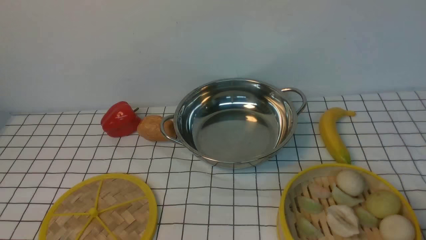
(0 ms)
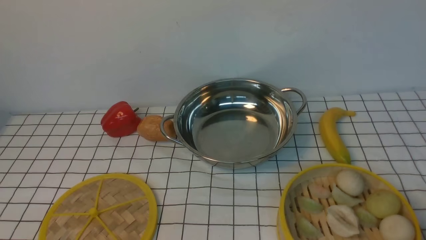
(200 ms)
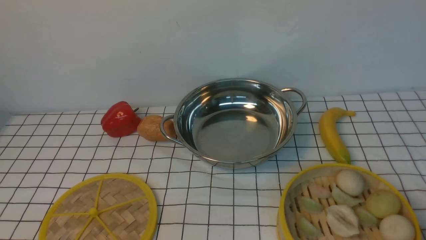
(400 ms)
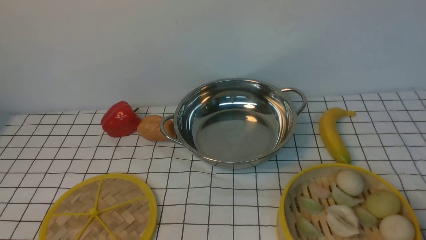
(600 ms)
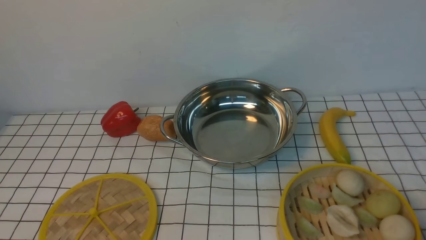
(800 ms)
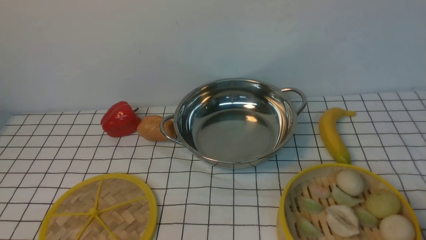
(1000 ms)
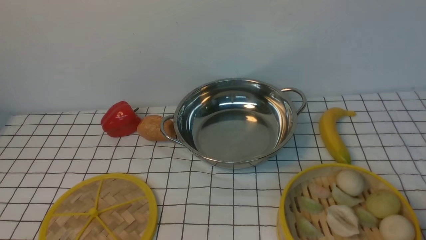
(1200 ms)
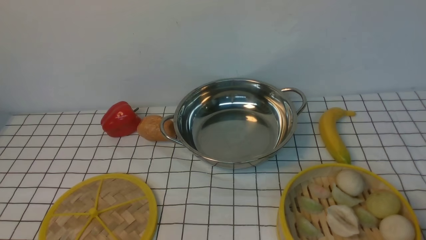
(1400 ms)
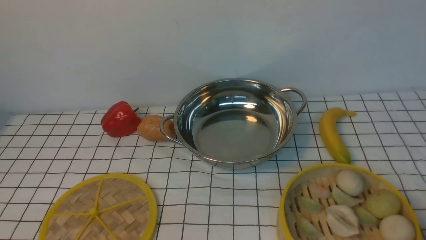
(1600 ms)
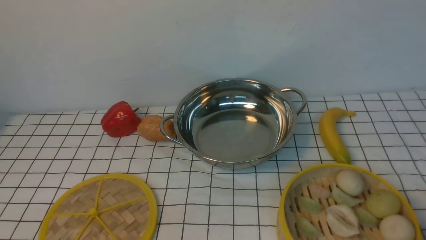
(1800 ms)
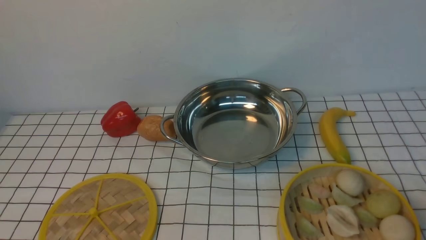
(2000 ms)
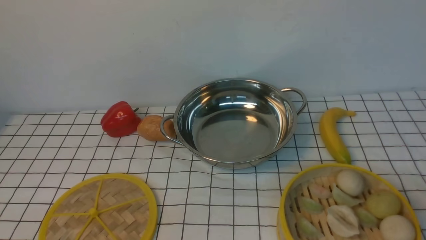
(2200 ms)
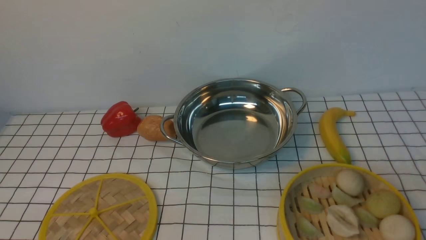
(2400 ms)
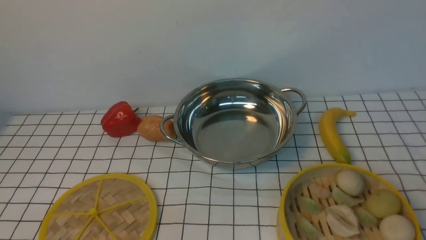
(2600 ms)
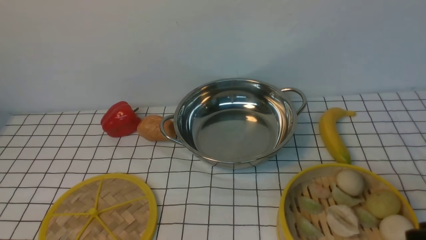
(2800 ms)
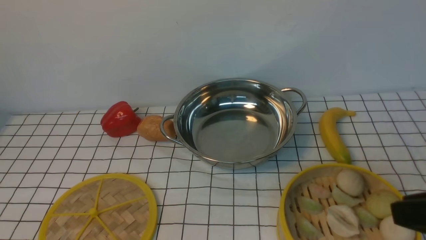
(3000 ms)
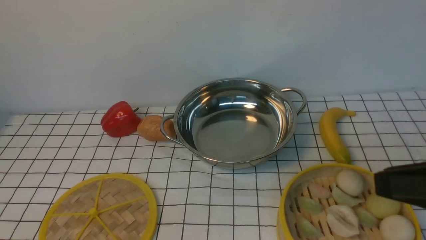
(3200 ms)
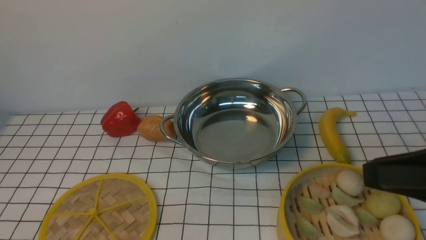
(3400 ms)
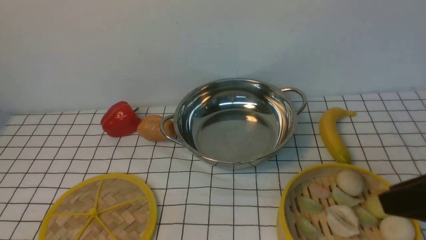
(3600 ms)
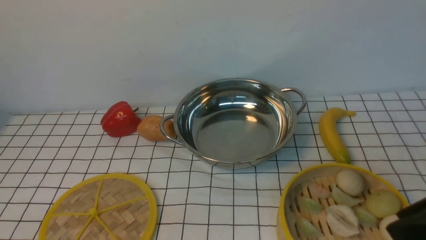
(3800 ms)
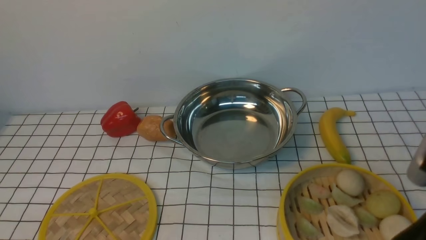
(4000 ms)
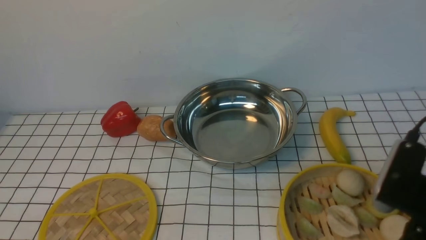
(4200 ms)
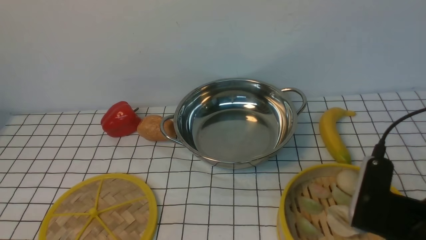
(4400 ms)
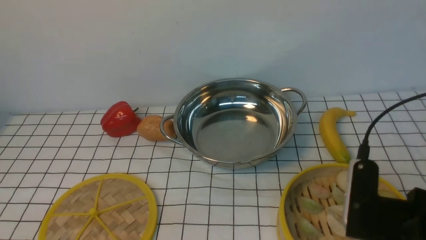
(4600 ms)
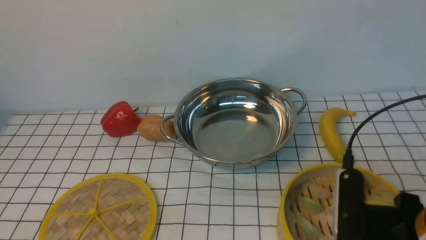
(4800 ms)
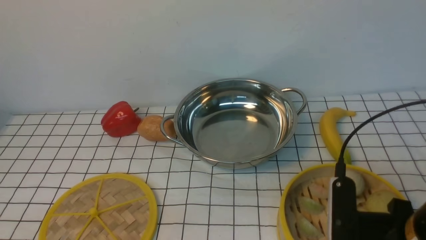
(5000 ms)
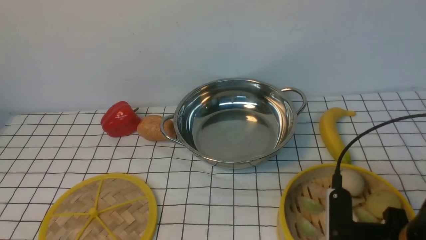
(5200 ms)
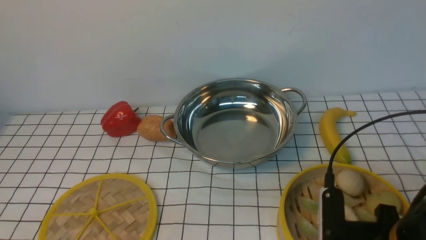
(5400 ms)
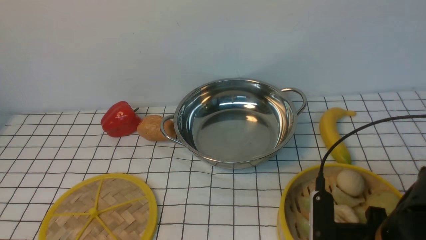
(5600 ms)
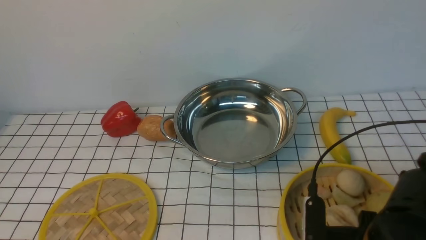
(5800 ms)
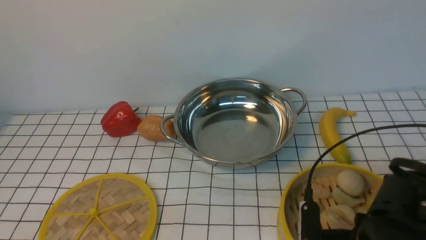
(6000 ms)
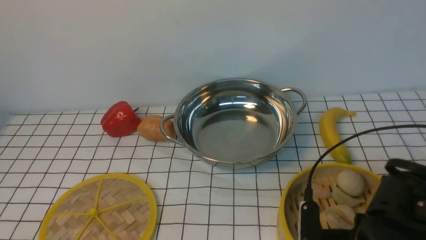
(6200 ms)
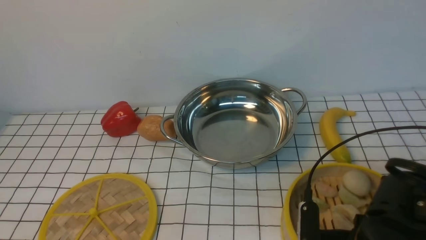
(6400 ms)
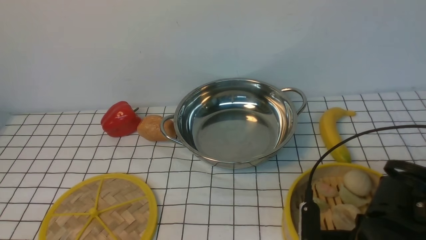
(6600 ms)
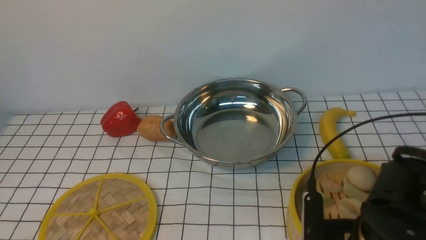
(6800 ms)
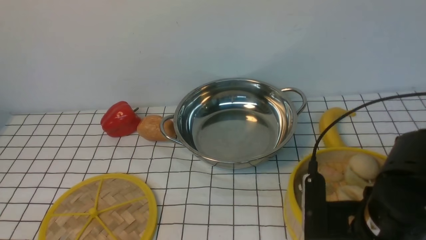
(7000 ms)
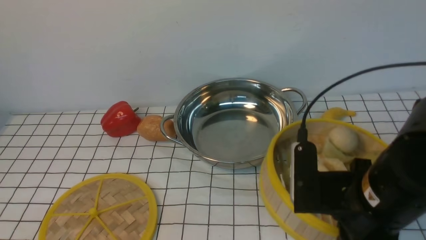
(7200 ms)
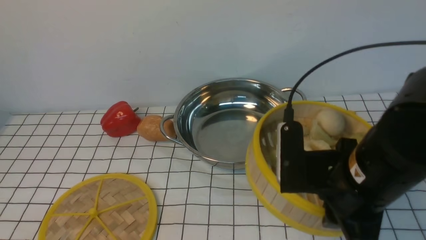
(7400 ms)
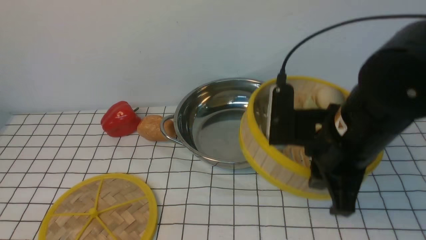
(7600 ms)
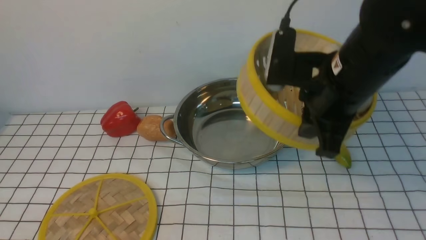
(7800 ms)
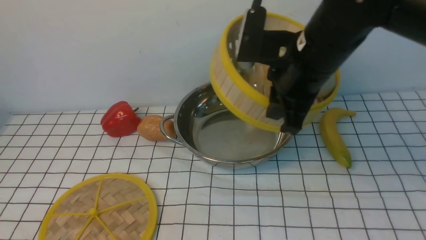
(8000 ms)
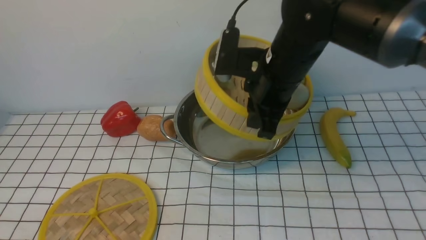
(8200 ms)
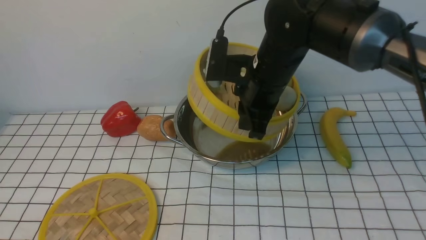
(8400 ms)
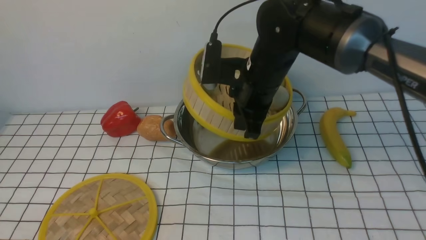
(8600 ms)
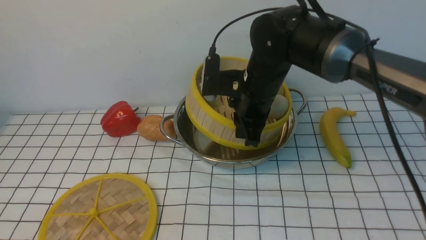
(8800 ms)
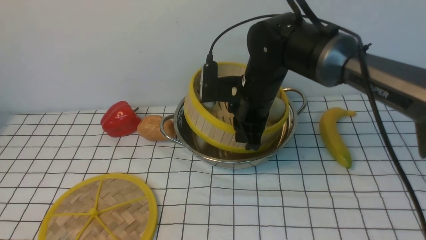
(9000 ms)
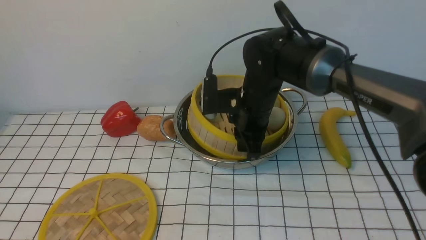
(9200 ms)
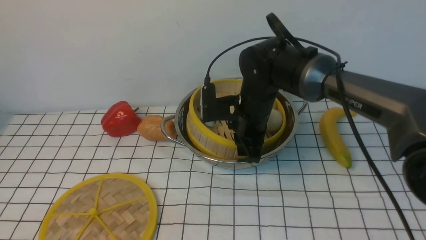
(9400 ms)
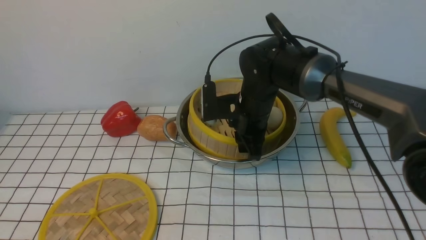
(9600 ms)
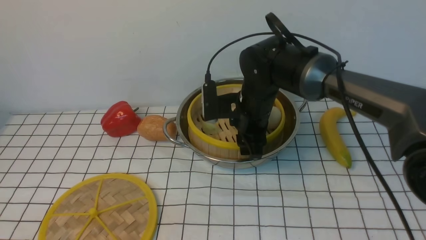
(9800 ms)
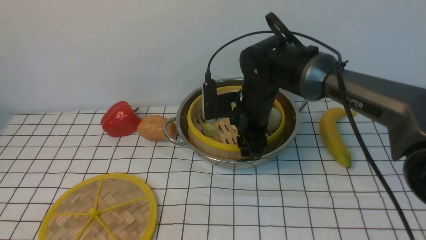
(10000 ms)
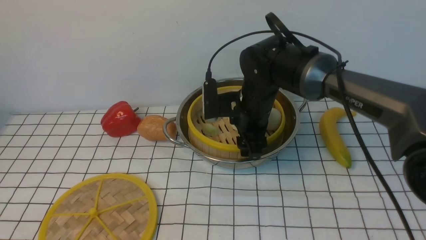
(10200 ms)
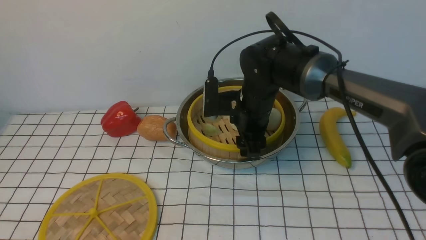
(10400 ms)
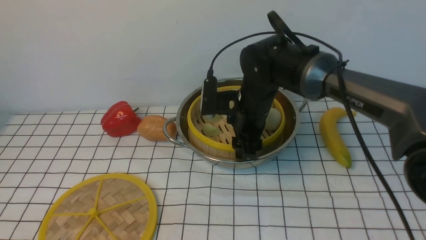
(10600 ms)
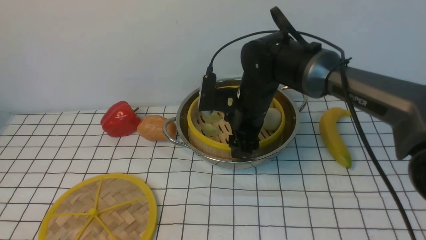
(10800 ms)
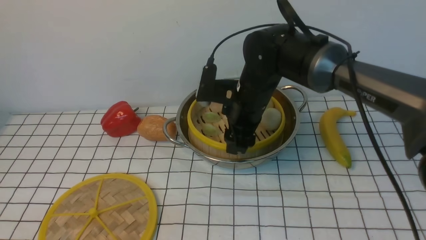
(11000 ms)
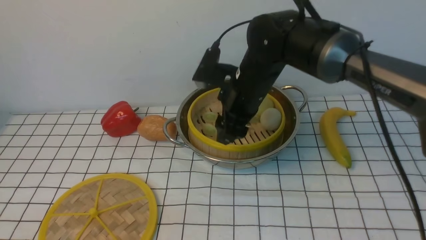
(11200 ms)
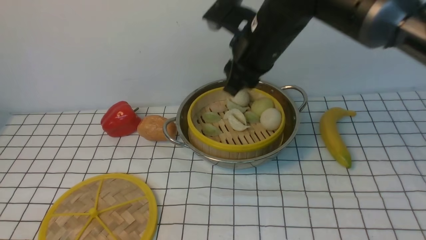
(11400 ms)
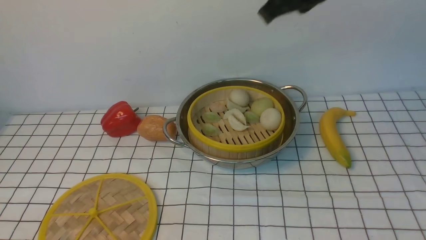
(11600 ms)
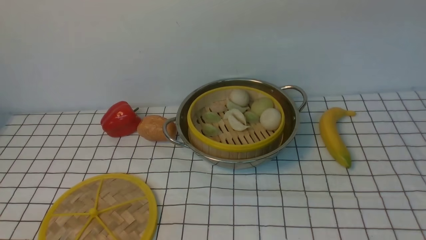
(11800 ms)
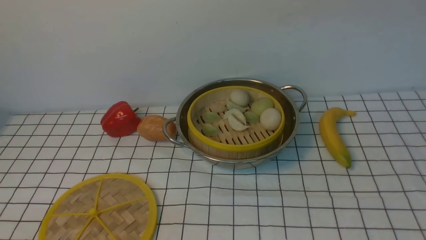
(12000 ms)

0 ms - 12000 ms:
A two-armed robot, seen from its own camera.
Task of the whole recording: place the steamer in the pot on the white tablecloth, and put the lid on the steamer.
Step, 0 ms - 6800 ms: use the right arm to lift the steamer closest to it.
Step, 7000 ms - 11000 ms: use the right arm to put the steamer into the iron steamer pot in the middle.
0 ms - 1600 ms: The two grippers keep their place.
1600 ms - 3000 ms: The right gripper is displaced upward by some 15 cm.
3000 ms - 4400 ms: The right gripper travels downward and to the left by about 10 cm.
4400 ms - 6000 ms: The right gripper moves downward, some 10 cm.
6000 ms - 7600 ms: The right gripper travels upward and forward by roughly 15 cm, and closes its fingers.
7600 ms - 9000 ms: The right gripper goes approximately 20 cm forward, to the left and downward.
9000 ms - 10400 ms: The right gripper opens.
10400 ms - 12000 ms: The right gripper moves upward and to the right, some 35 cm, and closes up.

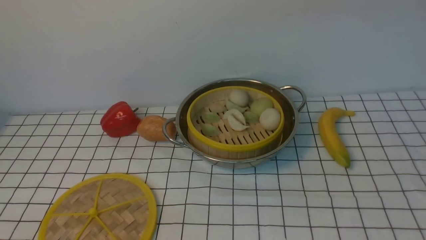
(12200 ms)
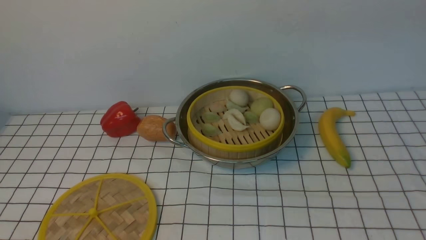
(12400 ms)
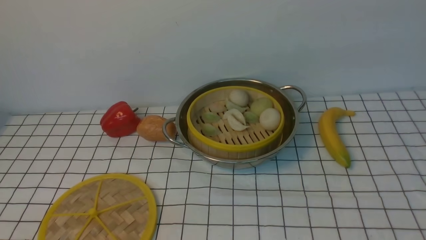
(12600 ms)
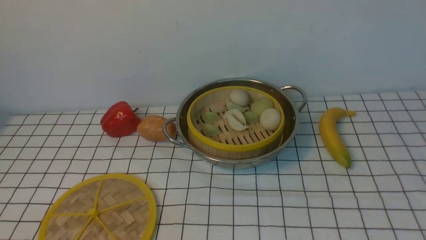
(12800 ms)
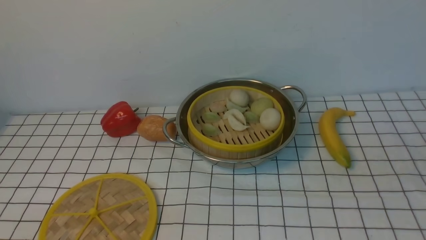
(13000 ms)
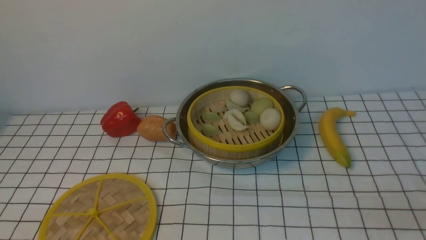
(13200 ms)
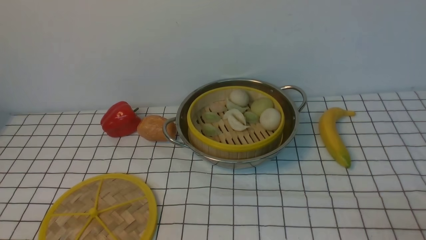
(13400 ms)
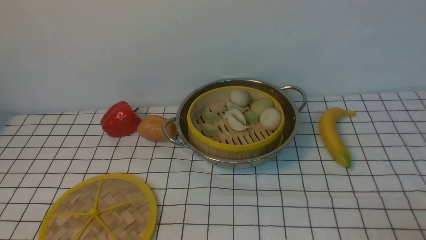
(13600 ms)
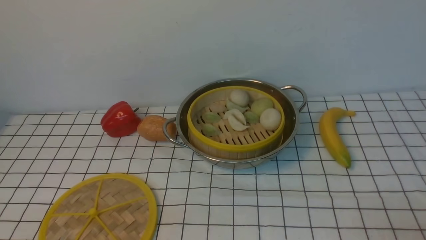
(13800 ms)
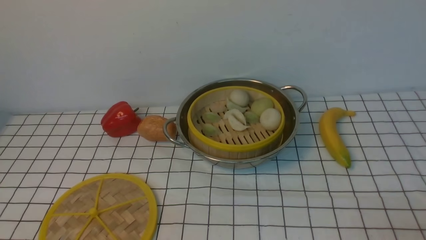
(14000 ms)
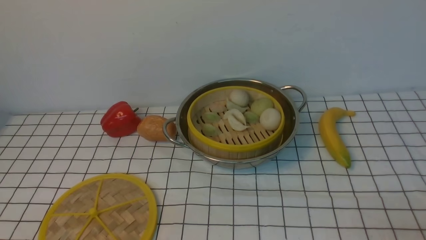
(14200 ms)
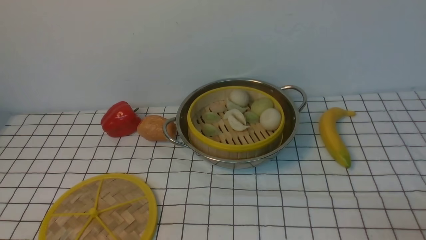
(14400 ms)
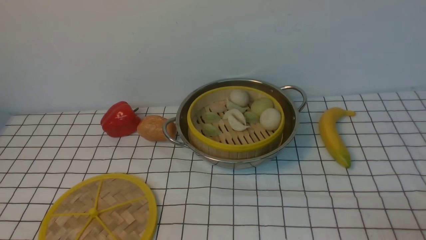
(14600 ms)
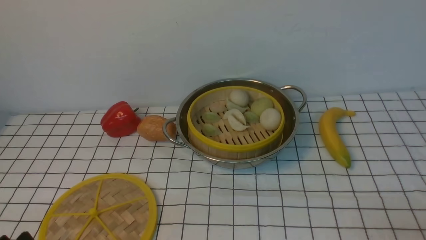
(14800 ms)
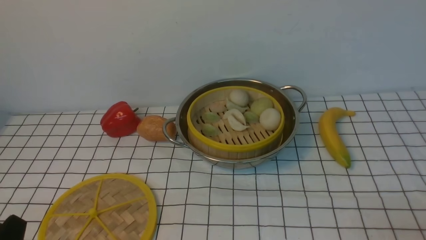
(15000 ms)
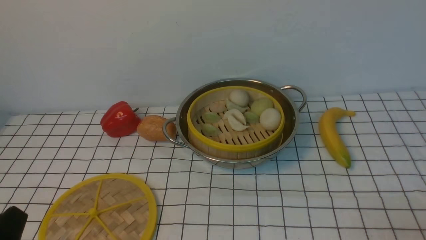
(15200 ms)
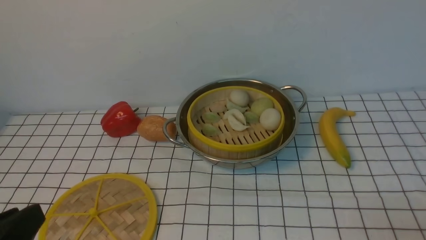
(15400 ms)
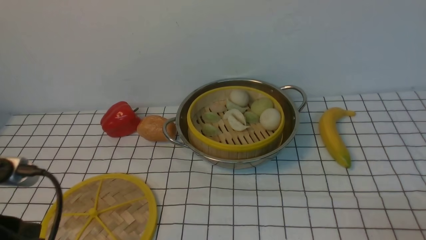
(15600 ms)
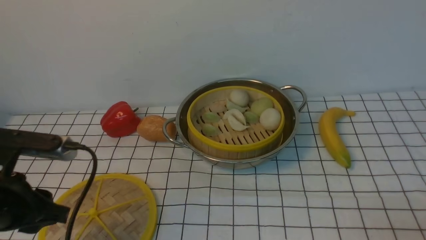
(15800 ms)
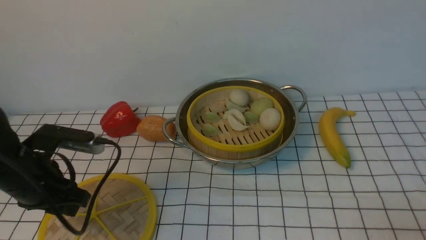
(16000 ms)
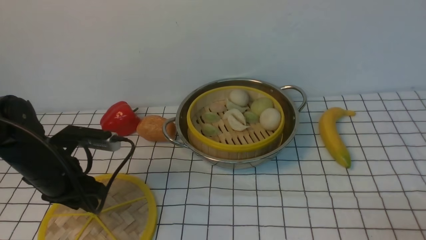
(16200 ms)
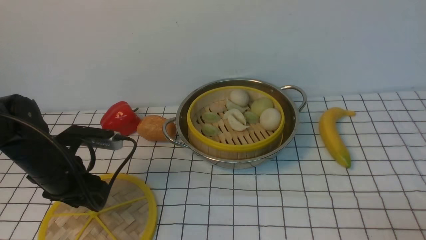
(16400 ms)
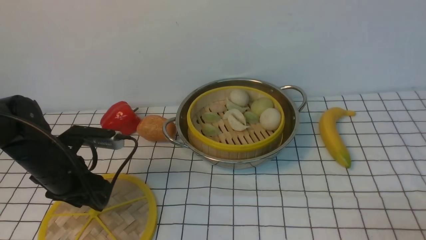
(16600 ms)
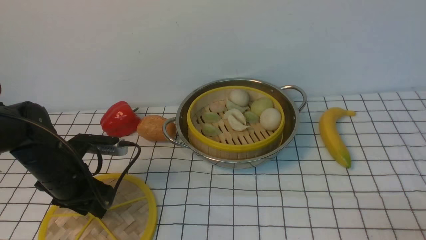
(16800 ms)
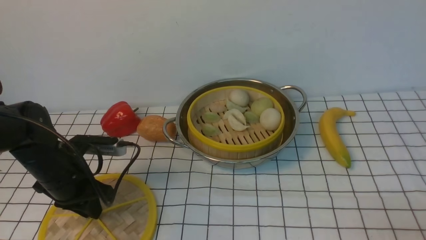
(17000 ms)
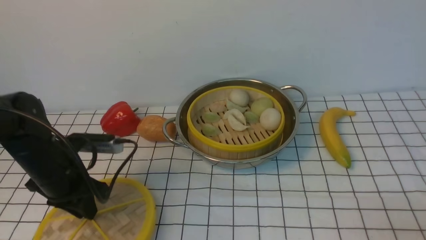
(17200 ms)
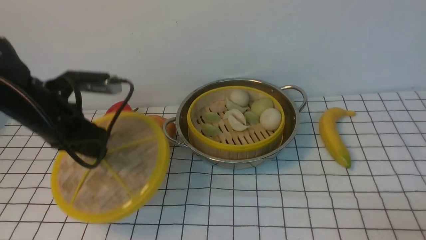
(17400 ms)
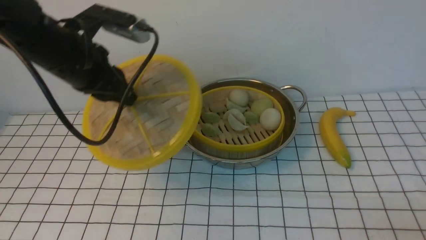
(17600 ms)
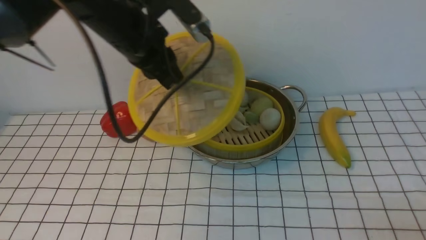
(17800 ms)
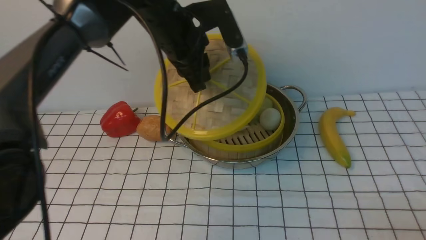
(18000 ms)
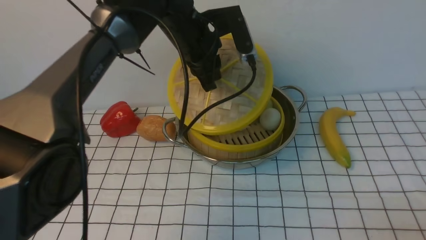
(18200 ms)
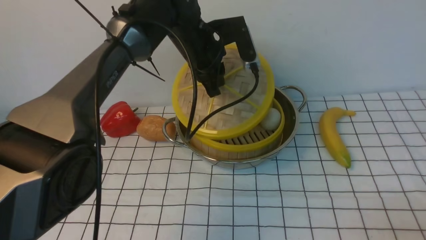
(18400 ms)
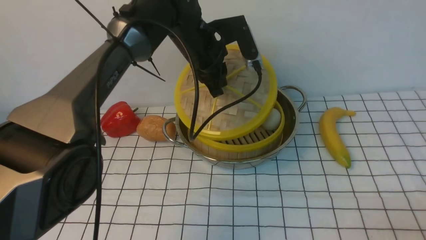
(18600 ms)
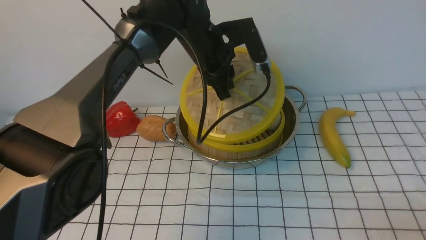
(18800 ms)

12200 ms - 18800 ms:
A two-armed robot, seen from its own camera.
Task of the whole recording: place the steamer in the pot on the white tablecloth, and put the lid on the steamer.
Step, 12200 ms - 17200 ms: use the left arm to lift the lid of the steamer.
13800 ms - 15400 ms: The left gripper shifts about 10 cm upward.
15400 ms - 17200 ms: The left gripper travels forward by about 25 cm.
17200 ms - 18800 ms: The left gripper shifts approximately 25 cm to the right and forward.
